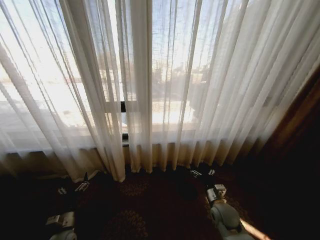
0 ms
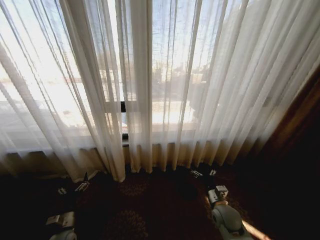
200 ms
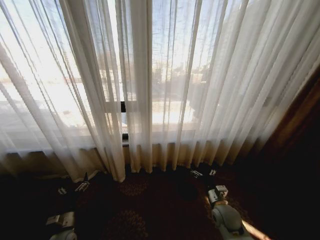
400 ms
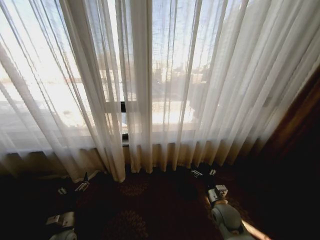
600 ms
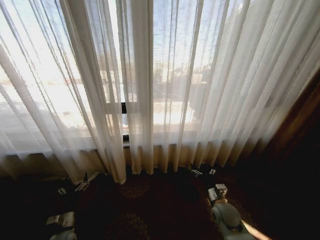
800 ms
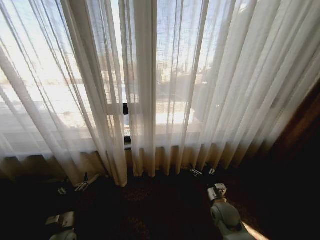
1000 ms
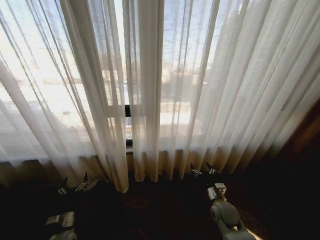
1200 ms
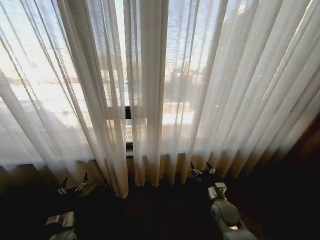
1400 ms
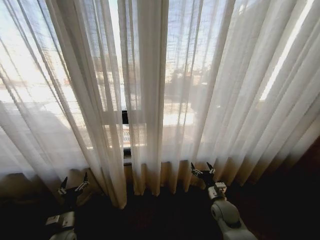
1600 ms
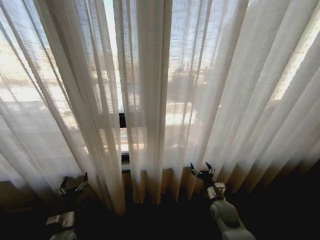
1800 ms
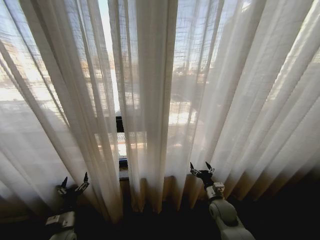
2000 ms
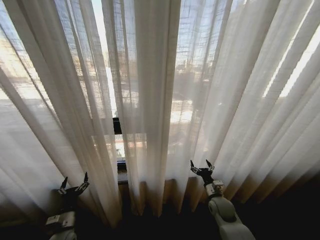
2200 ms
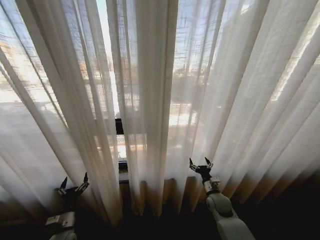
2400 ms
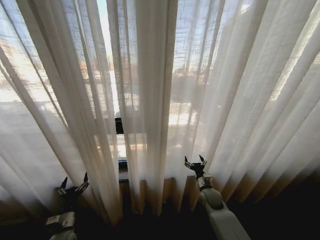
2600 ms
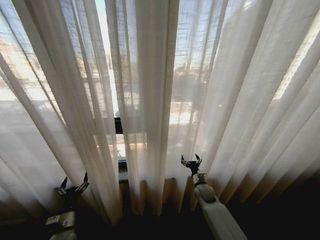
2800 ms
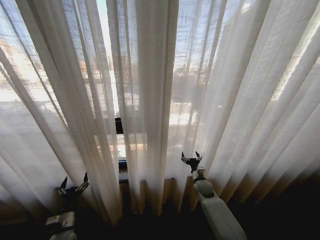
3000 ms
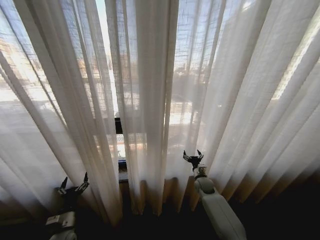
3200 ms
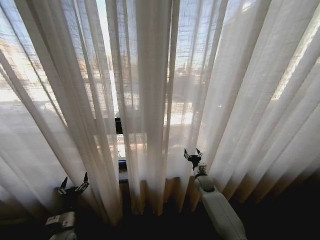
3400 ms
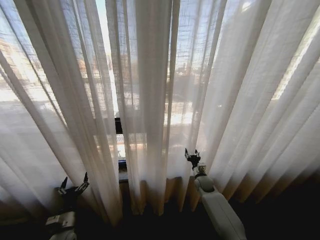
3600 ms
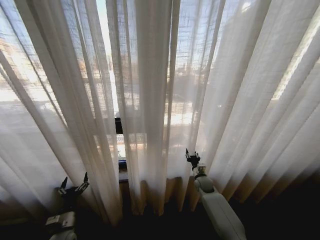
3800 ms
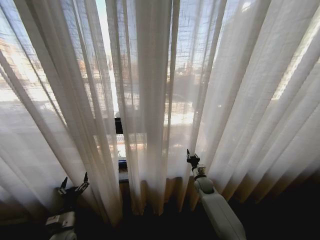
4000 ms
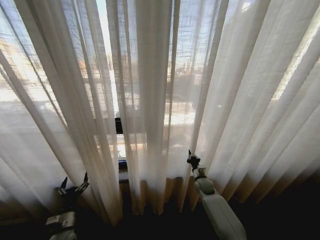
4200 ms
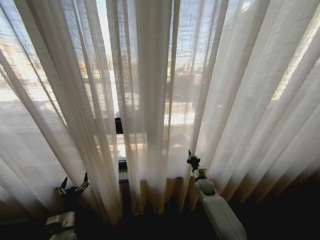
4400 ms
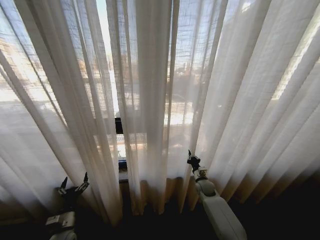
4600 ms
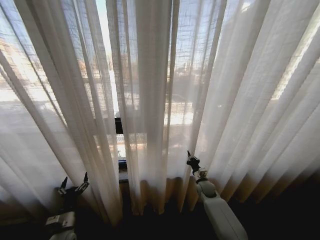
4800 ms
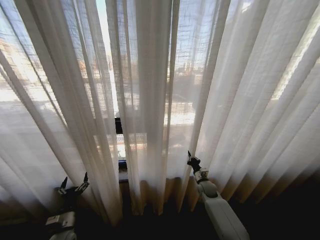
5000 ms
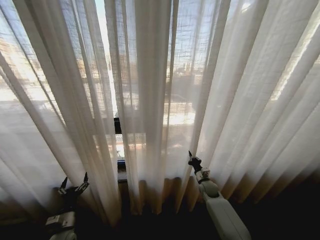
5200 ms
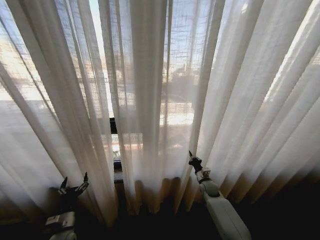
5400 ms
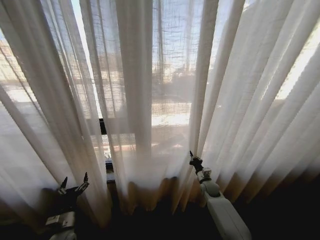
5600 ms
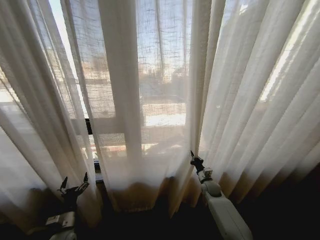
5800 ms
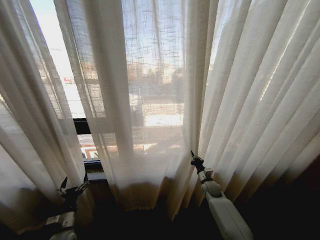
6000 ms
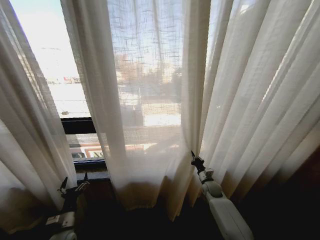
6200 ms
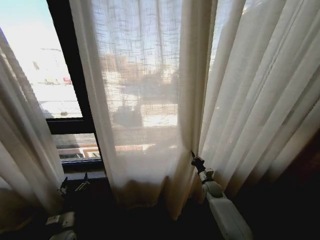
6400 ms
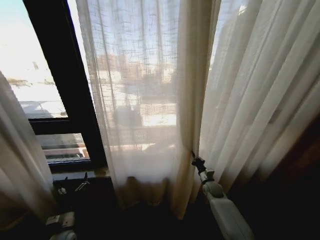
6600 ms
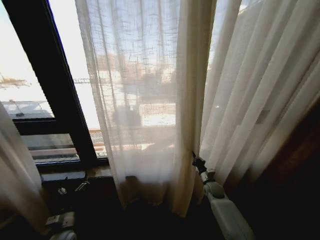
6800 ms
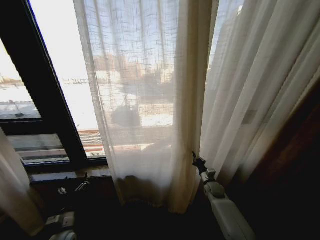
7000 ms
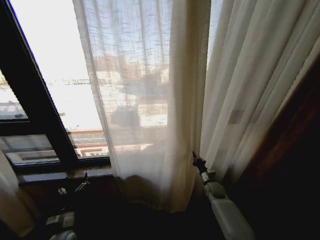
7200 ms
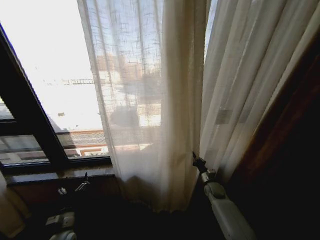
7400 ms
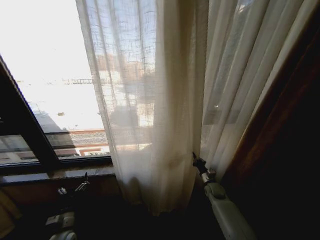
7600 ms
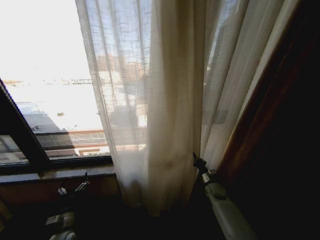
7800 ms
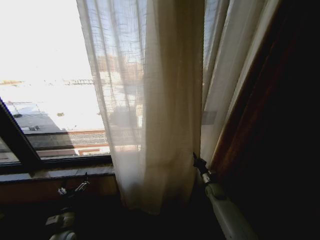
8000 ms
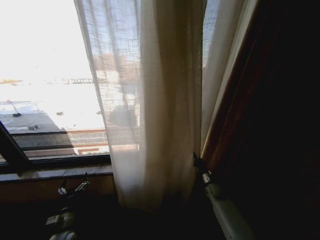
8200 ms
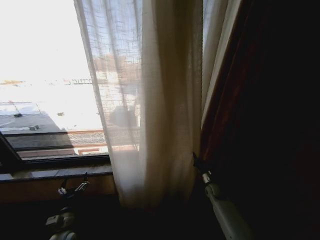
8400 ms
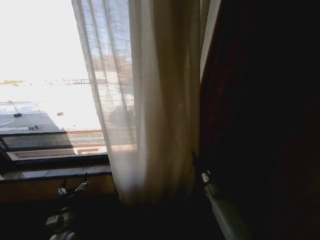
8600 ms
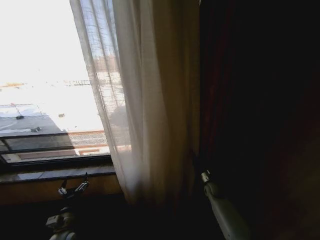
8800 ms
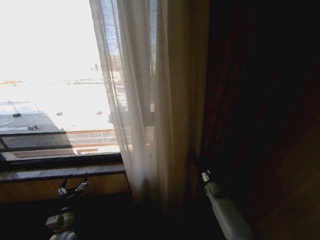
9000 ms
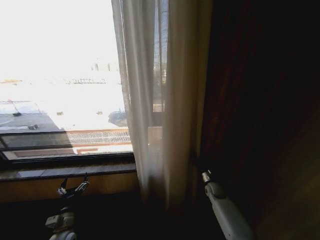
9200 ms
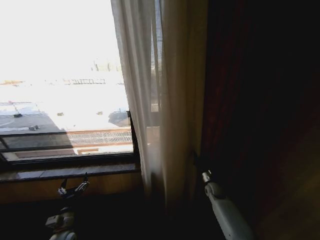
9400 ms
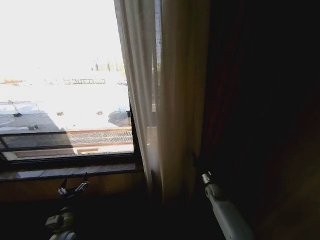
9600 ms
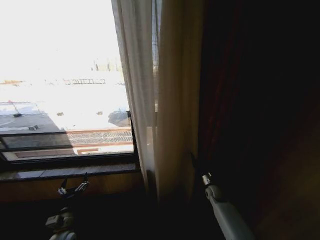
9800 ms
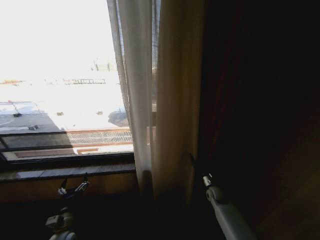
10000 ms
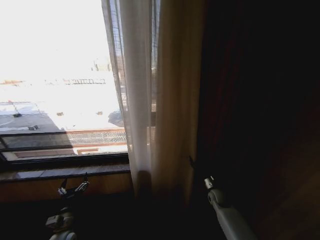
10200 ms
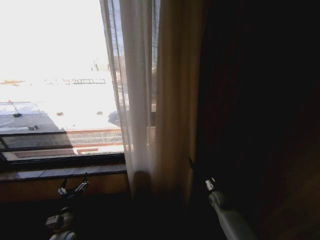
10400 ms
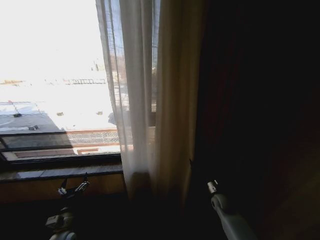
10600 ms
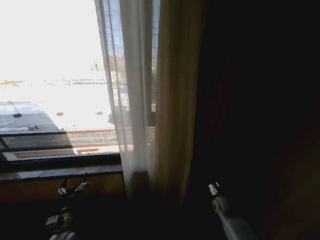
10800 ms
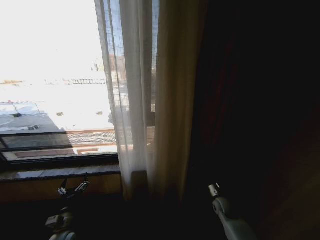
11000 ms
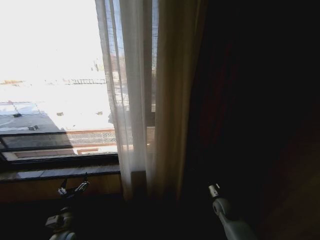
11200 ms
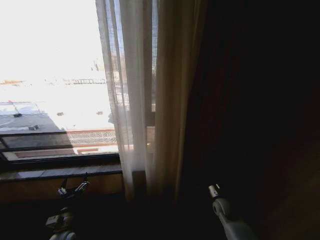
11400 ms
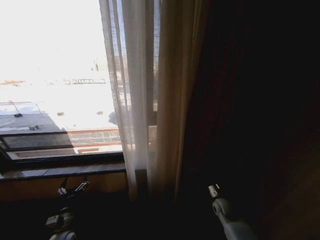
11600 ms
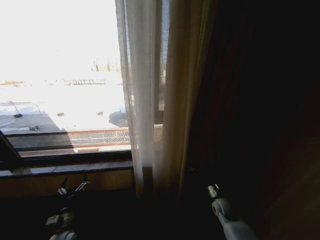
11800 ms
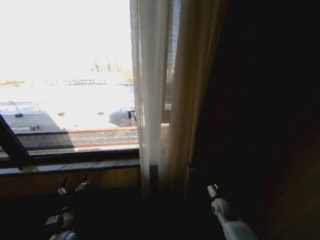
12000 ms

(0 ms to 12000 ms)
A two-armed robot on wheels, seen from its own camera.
Task of the whole recording: Open the curtains by pulling them apart, changing their state from closed to fully open.
1600 ms - 3000 ms: The right gripper is displaced forward by about 10 cm.
3000 ms - 4400 ms: The right gripper closes up.
9000 ms - 10400 ms: The right gripper shifts some 5 cm backward, and opens.
10400 ms - 12000 ms: There are only small adjustments of the grippers.

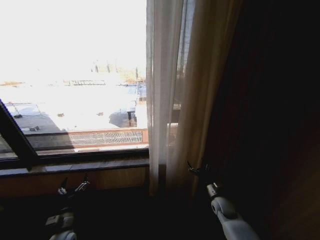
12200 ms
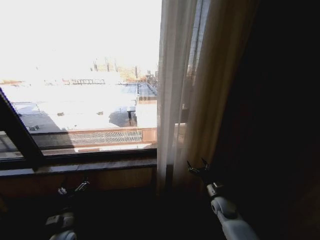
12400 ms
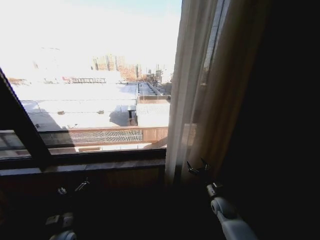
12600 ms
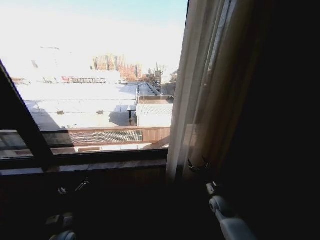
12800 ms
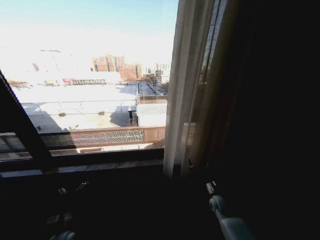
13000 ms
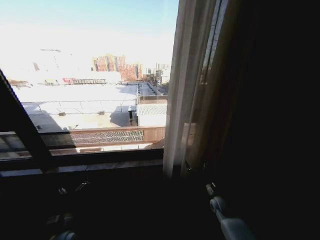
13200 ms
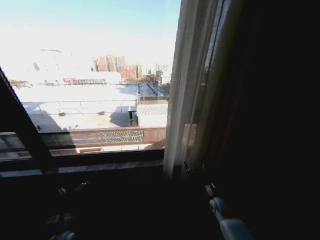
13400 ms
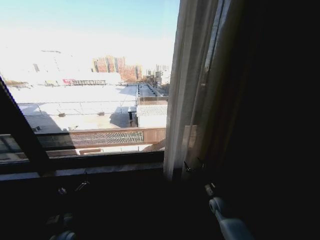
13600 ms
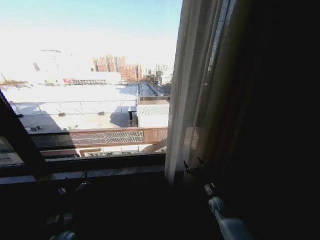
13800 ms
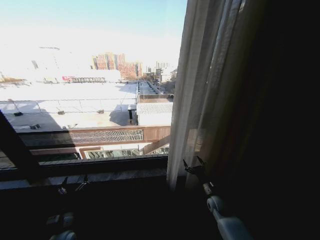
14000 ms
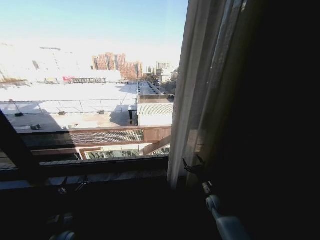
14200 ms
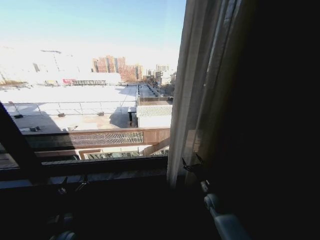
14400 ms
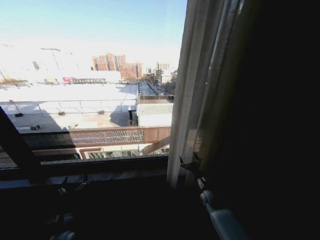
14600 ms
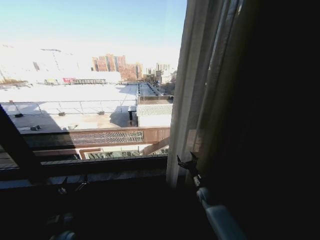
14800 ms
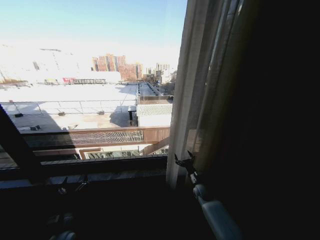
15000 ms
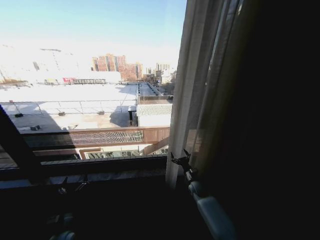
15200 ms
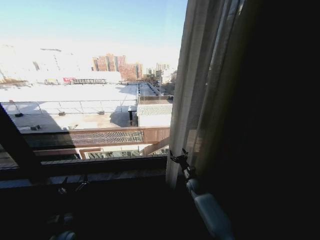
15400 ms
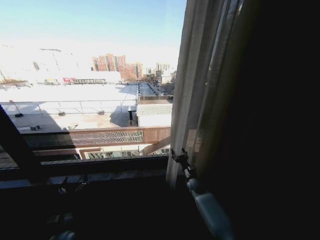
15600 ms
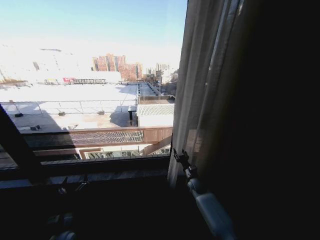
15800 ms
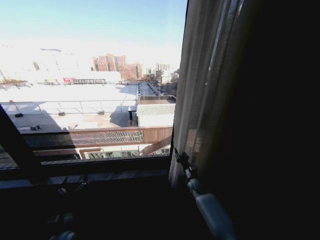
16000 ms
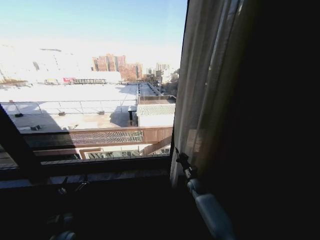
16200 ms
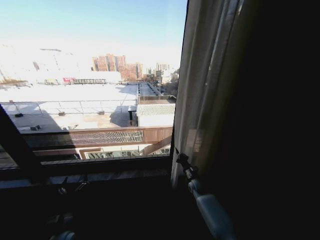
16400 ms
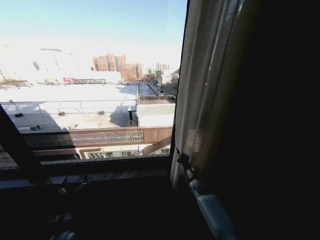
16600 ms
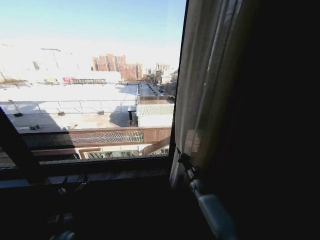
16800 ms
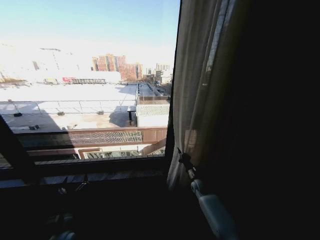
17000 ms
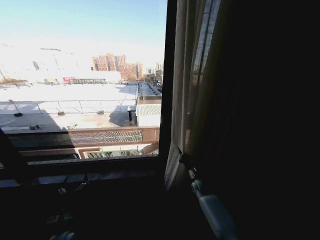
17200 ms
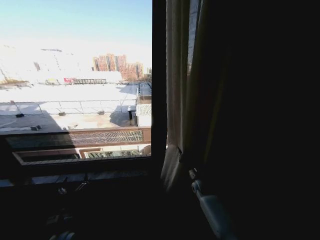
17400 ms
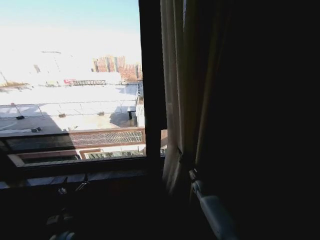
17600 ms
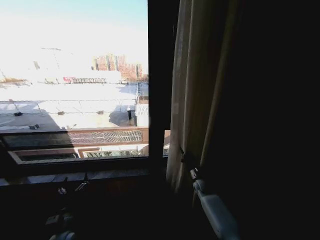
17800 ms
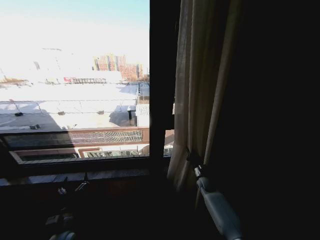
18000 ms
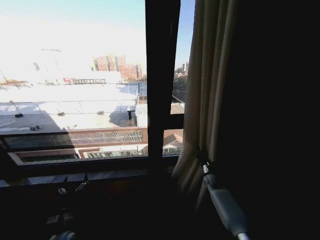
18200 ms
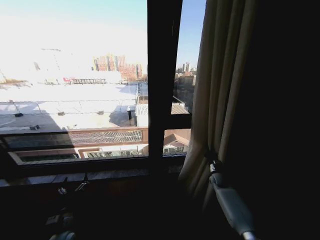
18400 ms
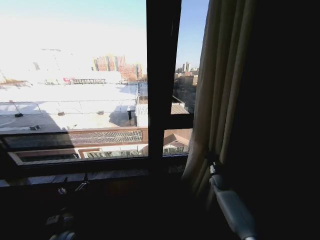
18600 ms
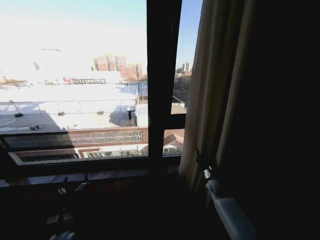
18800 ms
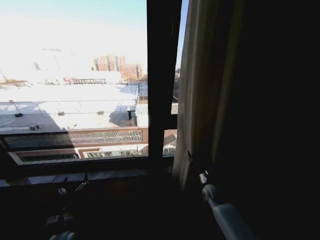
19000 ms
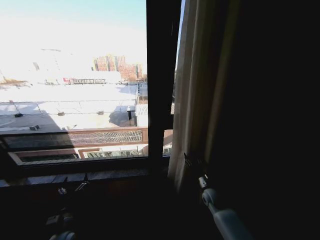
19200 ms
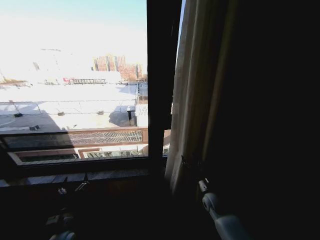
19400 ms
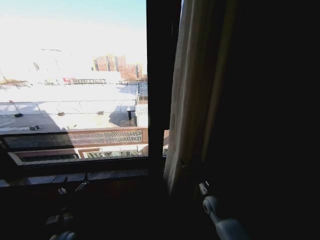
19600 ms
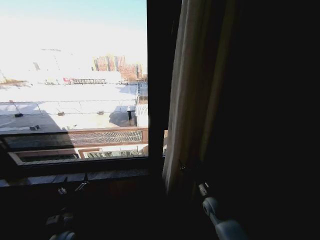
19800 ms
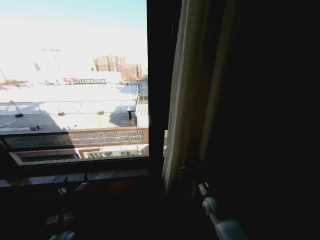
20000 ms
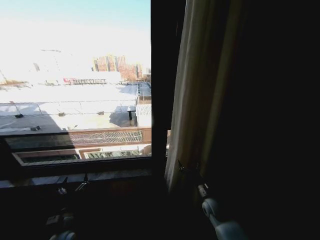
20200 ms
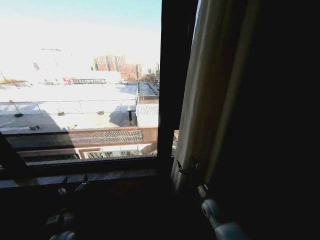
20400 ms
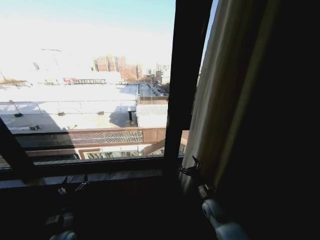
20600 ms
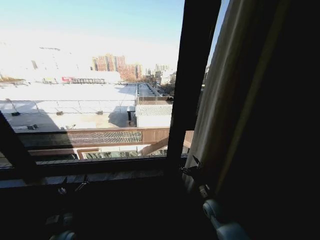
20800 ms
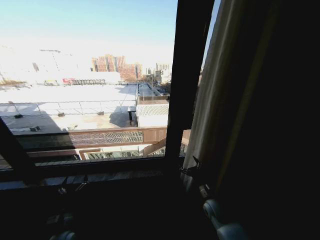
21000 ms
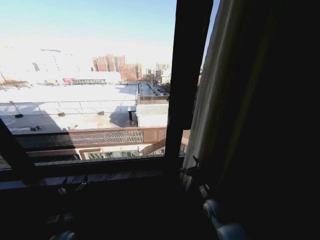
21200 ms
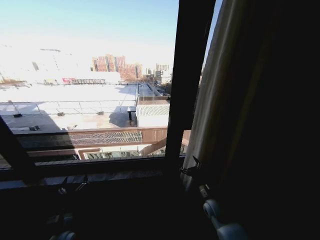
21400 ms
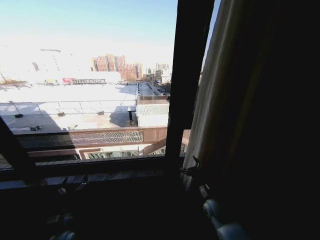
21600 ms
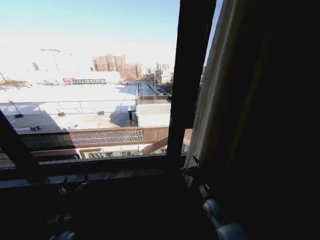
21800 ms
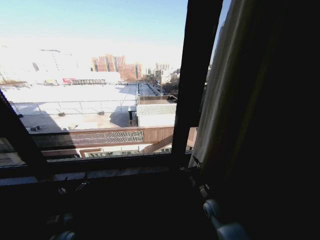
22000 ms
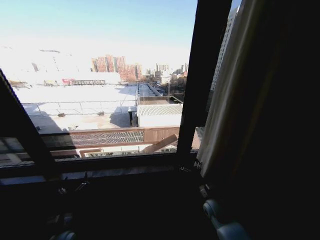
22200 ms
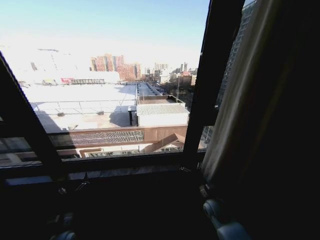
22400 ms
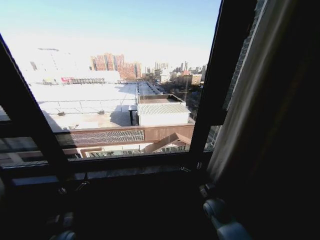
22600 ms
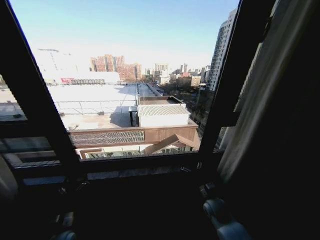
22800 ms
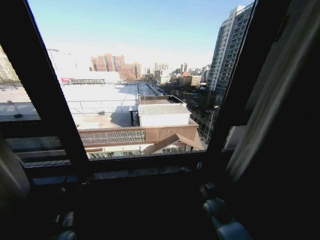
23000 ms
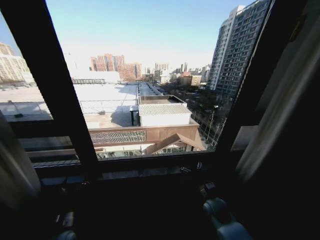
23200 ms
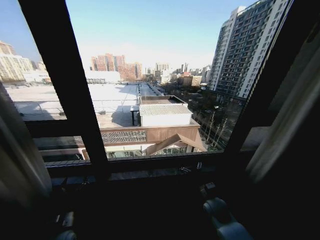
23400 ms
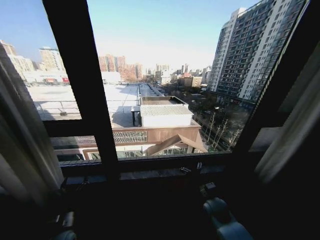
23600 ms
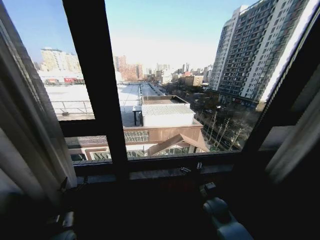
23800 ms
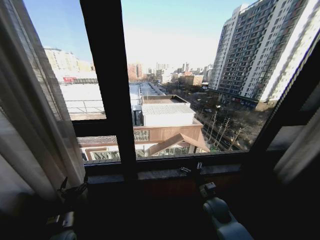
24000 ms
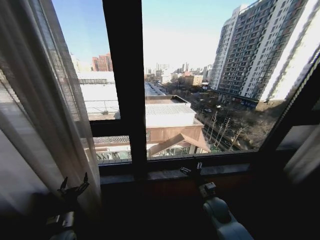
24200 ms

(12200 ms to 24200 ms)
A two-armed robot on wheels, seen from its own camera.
Task of the whole recording: Open the curtains by pulling them apart, changing their state from closed to fully open.
13800 ms - 15200 ms: The right gripper goes roughly 10 cm forward and to the left.
15200 ms - 16600 ms: The right gripper closes.
16600 ms - 18200 ms: The right gripper is displaced to the right by approximately 10 cm.
18200 ms - 19800 ms: The right gripper shifts roughly 15 cm backward and to the left, and opens up.
19800 ms - 21200 ms: The grippers stay close to where they were, moving slightly.
